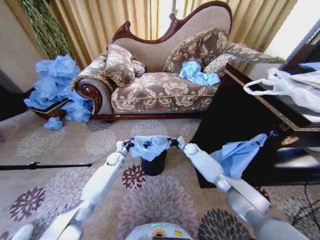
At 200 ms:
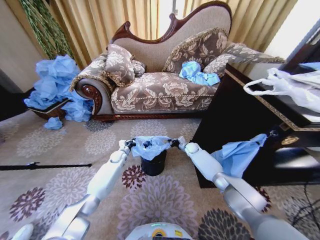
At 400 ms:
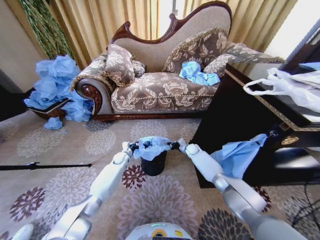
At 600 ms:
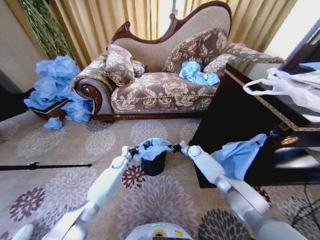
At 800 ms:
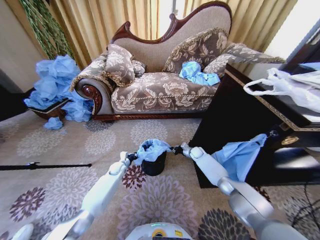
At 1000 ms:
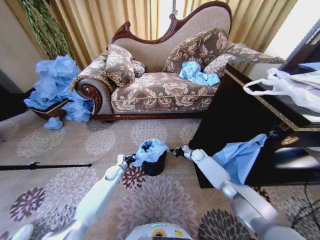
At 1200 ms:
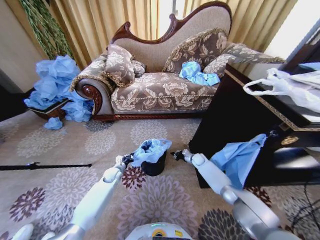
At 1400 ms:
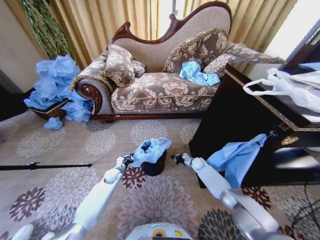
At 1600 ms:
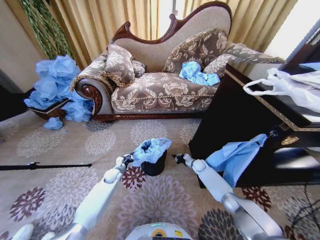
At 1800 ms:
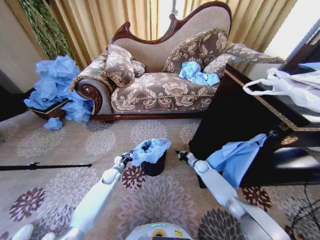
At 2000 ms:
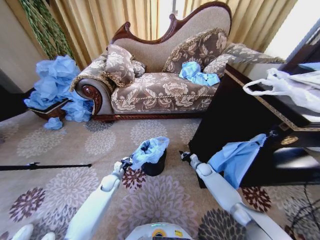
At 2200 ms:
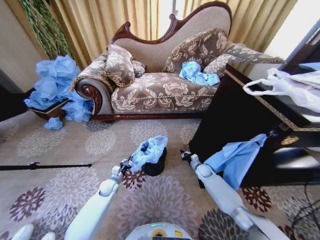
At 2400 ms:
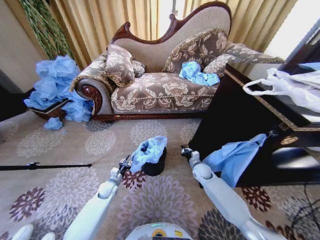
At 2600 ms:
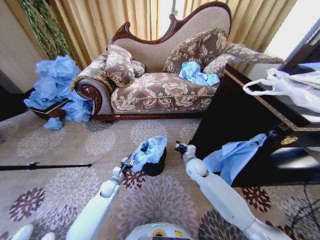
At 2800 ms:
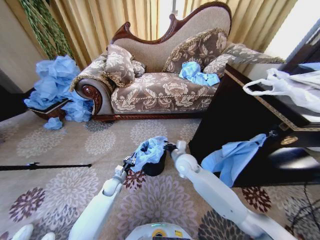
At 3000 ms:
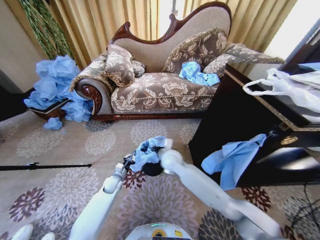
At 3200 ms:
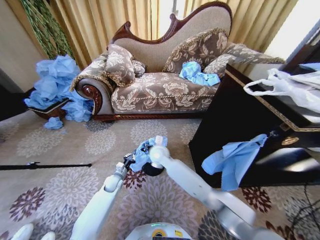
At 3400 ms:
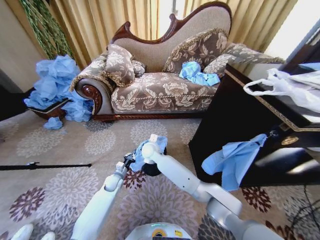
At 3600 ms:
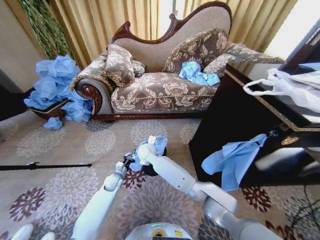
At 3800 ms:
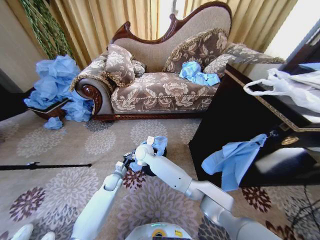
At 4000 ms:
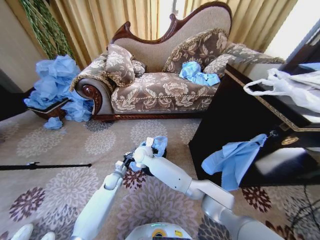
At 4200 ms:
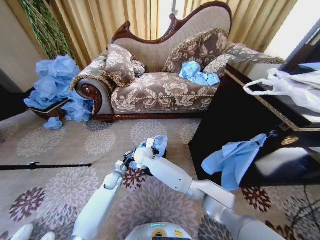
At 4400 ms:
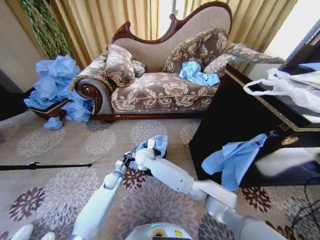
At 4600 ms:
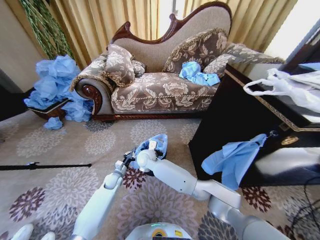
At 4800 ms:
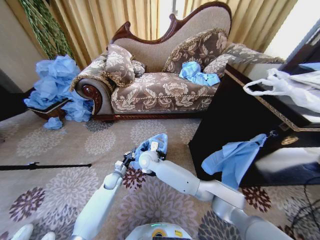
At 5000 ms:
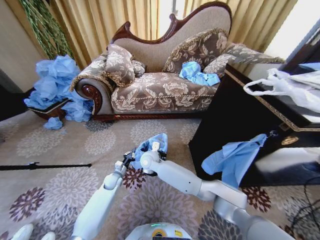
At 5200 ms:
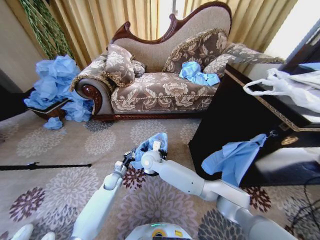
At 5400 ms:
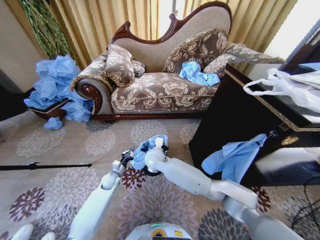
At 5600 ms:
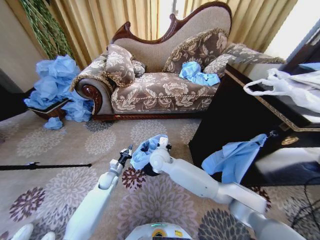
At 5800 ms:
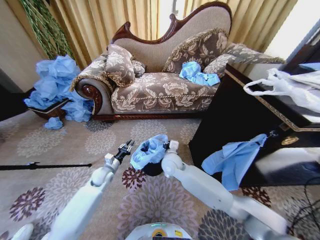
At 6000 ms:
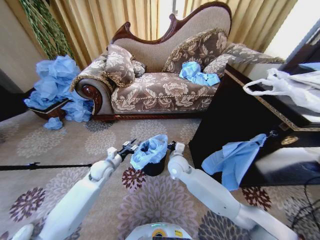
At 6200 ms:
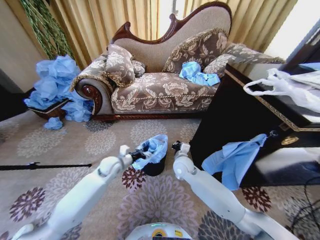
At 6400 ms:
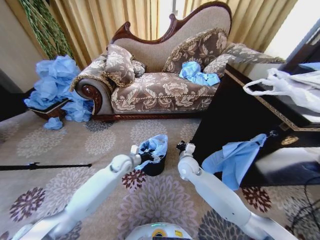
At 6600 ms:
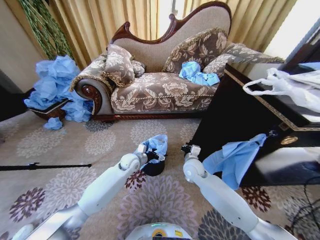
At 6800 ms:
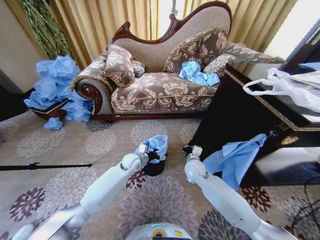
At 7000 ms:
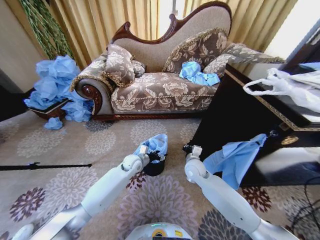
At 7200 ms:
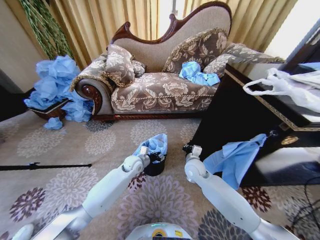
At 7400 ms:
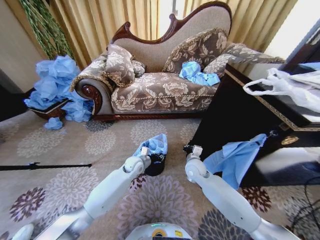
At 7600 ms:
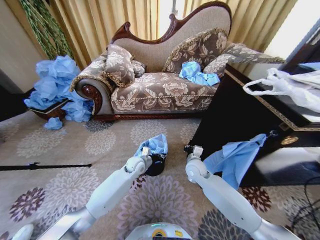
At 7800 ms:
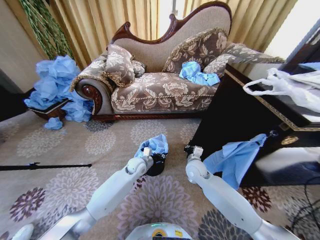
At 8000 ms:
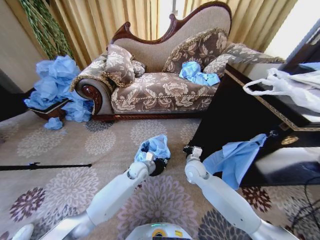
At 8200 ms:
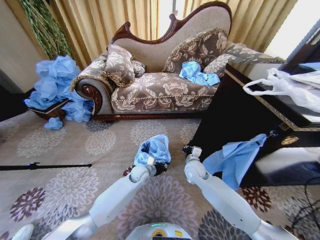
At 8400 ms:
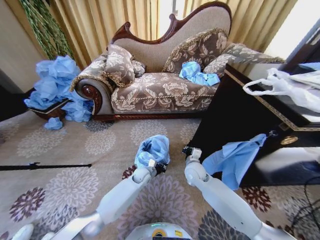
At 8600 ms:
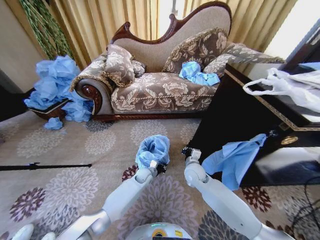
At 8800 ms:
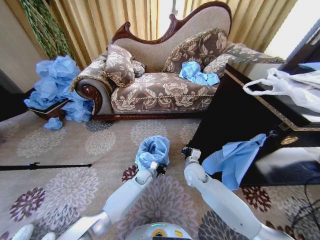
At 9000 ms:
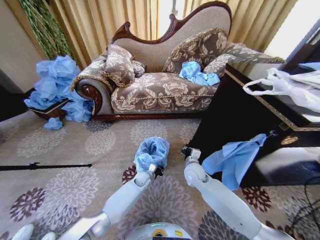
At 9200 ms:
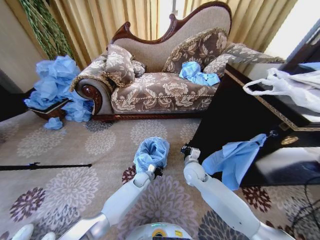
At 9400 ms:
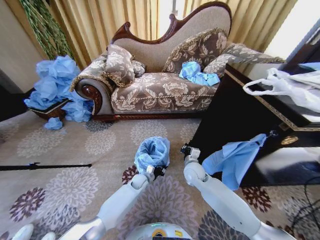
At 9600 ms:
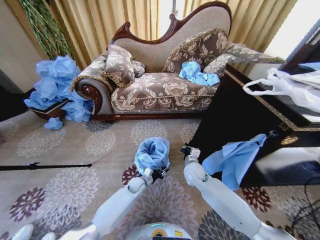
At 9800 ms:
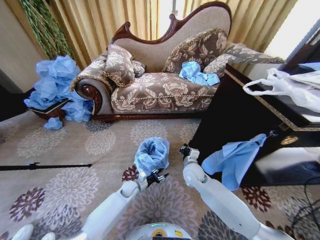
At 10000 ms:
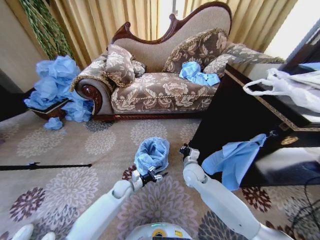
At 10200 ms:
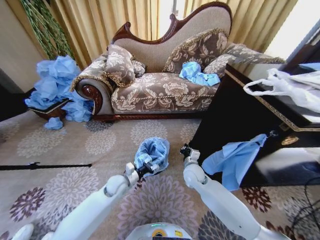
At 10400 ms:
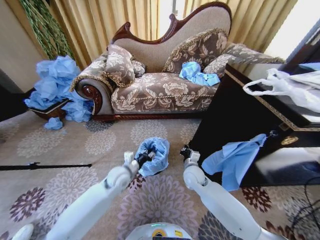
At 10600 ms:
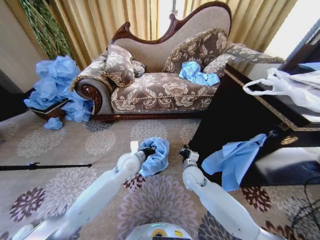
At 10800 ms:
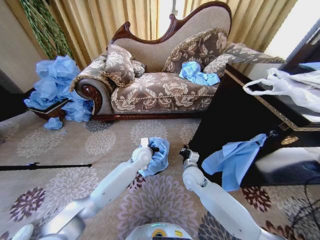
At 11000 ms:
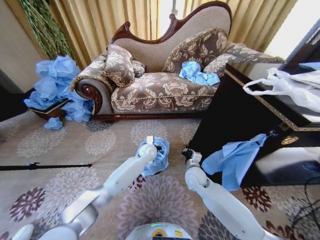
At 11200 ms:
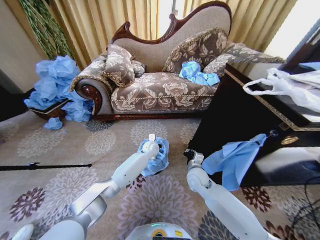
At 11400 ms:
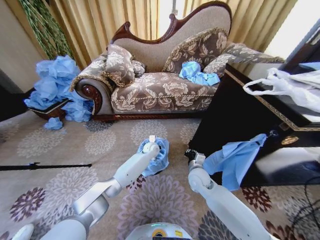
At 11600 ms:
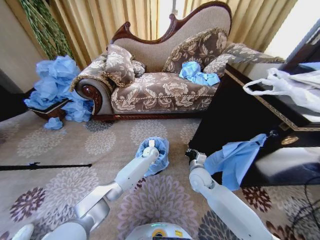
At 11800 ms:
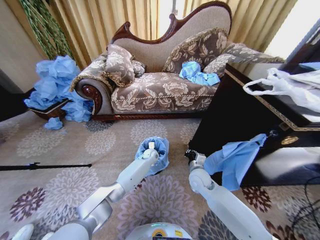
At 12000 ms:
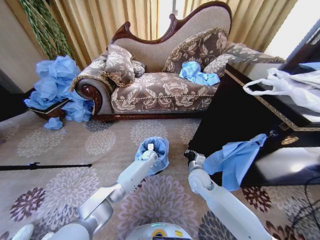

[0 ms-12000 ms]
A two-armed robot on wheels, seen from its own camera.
Task of the whole recording: Place a garbage bag over the trash bin.
0 ms to 1600 ms: The right gripper travels downward, backward and to the right by about 15 cm. Meanwhile the left gripper travels backward and downward by approximately 10 cm.
1600 ms to 3000 ms: The left gripper shifts by some 5 cm; the right gripper goes about 35 cm upward, to the left and backward.
3000 ms to 4400 ms: The right gripper heads to the left, covering about 15 cm.
4400 ms to 6000 ms: The left gripper heads upward, covering roughly 15 cm, and opens its fingers. The right gripper moves to the right, roughly 15 cm.
6000 ms to 7600 ms: The right gripper moves to the right, some 10 cm; the left gripper goes approximately 15 cm to the right, and closes.
7600 ms to 9000 ms: The left gripper goes roughly 15 cm downward.
9000 ms to 10400 ms: The left gripper shifts roughly 20 cm upward.
10400 ms to 12000 ms: The left gripper travels forward, downward and to the right by about 25 cm.

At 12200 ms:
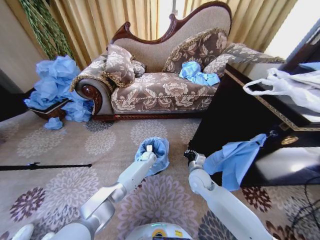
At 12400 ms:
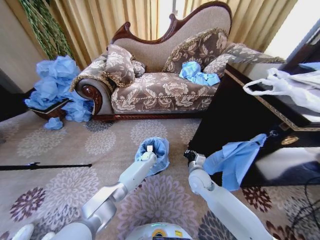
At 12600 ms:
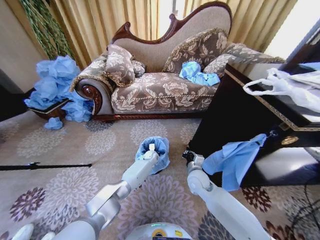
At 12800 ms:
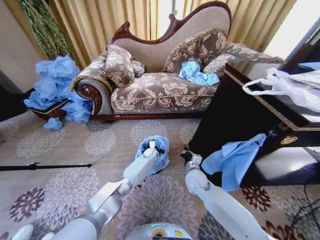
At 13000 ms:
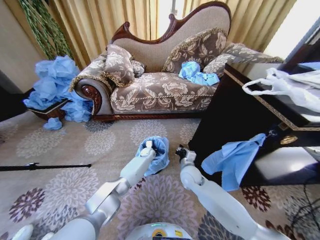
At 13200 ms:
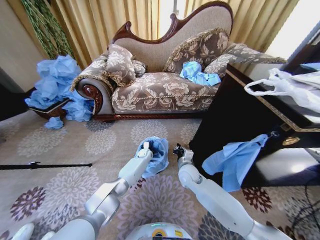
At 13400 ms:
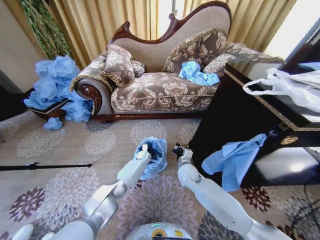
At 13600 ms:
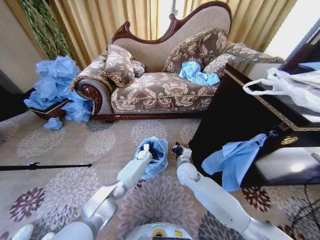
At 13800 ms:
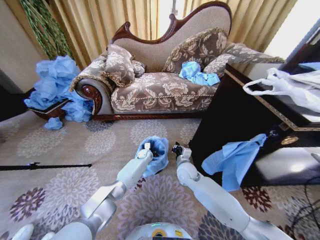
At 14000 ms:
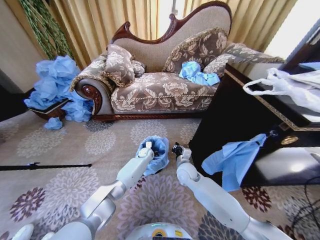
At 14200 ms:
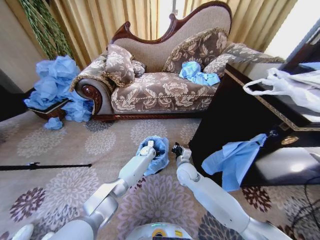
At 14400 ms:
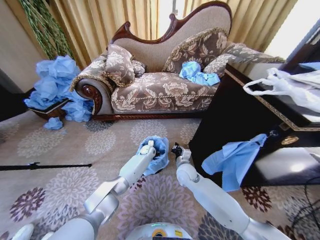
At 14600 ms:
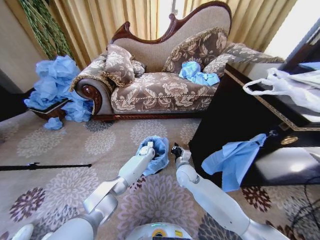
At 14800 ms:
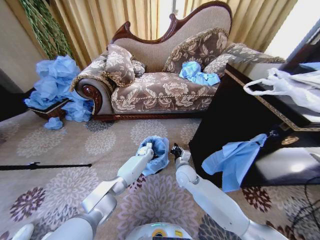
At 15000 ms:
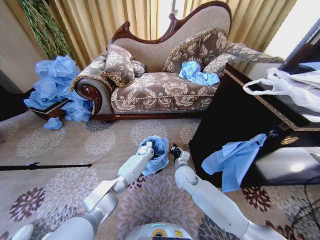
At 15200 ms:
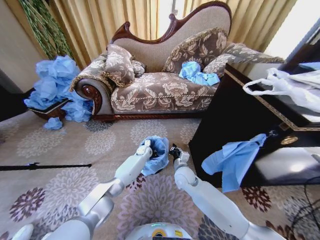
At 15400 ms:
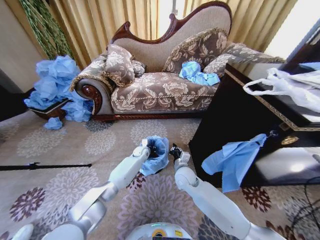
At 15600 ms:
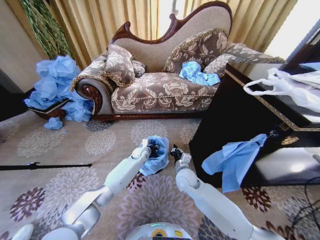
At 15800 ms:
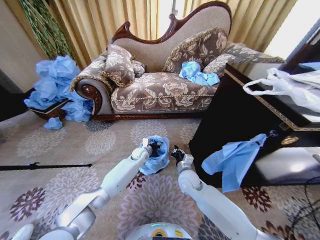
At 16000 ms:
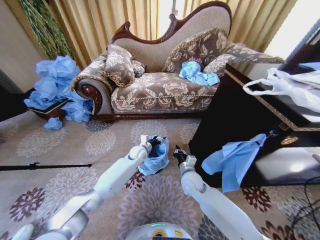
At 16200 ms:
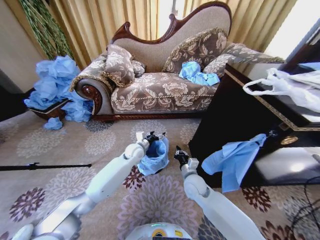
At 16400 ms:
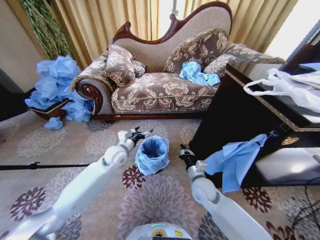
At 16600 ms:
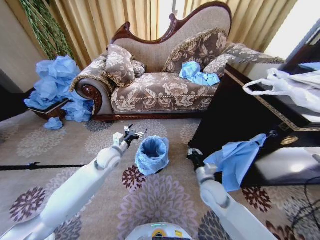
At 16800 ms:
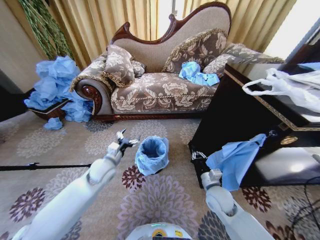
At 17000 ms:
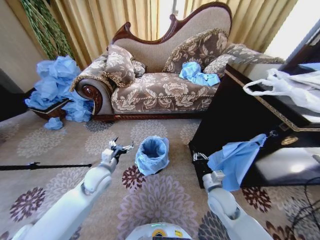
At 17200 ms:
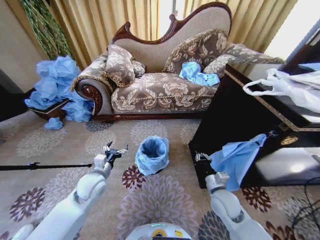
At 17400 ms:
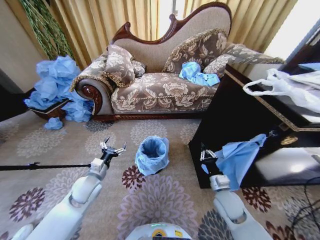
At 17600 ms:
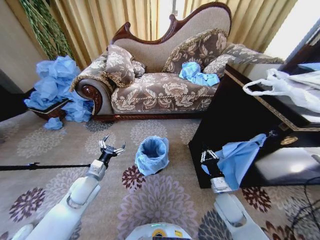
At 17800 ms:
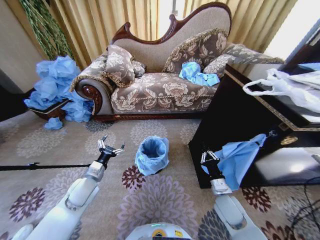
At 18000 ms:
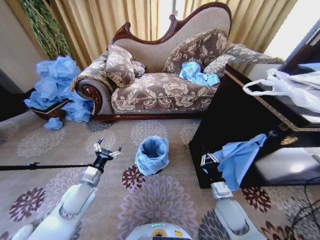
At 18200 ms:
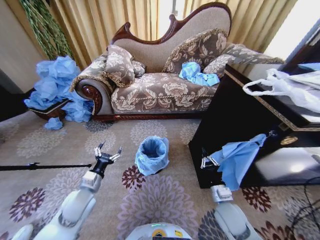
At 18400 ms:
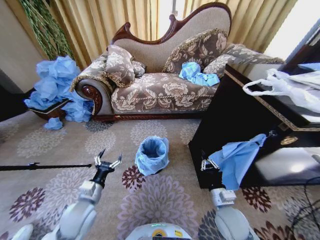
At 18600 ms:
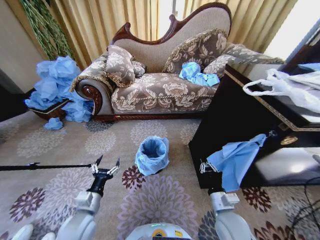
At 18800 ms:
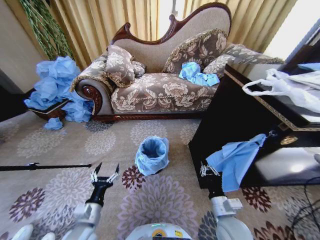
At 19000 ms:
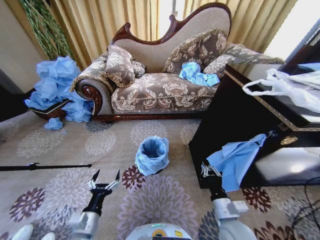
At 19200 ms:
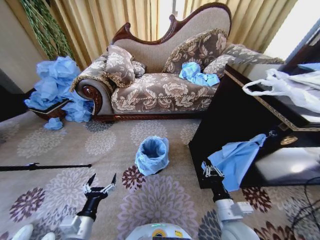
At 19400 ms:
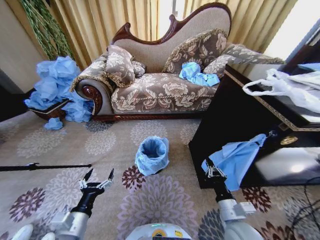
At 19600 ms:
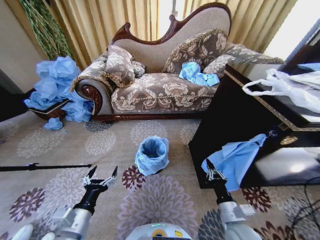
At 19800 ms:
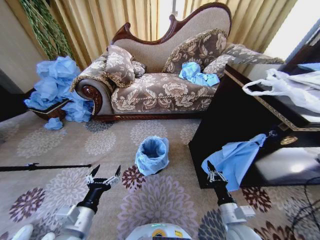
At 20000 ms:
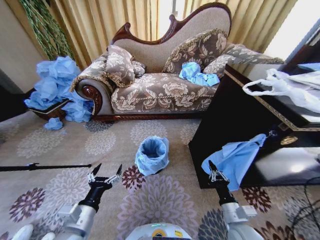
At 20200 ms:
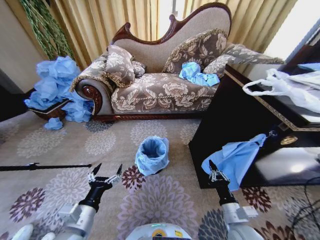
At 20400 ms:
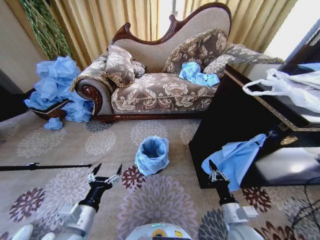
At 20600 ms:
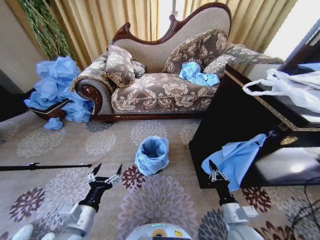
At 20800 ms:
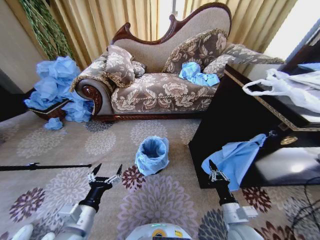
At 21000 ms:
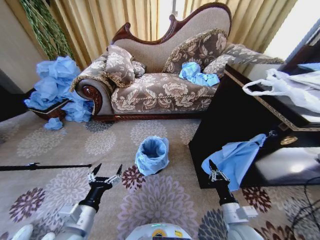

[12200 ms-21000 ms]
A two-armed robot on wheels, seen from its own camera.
Task of the whole recording: Place a garbage bag over the trash bin.
12200 ms to 13600 ms: The right gripper is displaced to the left by some 5 cm.
13600 ms to 15200 ms: The grippers make only small movements.
15200 ms to 16600 ms: The left gripper shifts approximately 25 cm backward, upward and to the left, and opens its fingers, while the right gripper shifts roughly 15 cm to the right and backward.
16600 ms to 18000 ms: The right gripper goes roughly 5 cm backward; the left gripper moves backward and to the left, some 15 cm.
18000 ms to 19600 ms: The right gripper travels backward by some 10 cm. Meanwhile the left gripper travels backward by approximately 15 cm.
19600 ms to 21000 ms: The grippers make only small movements.
